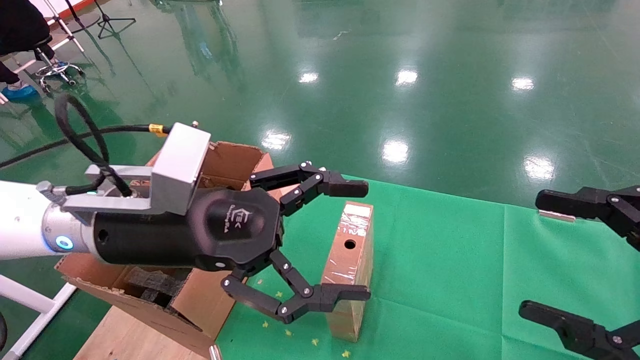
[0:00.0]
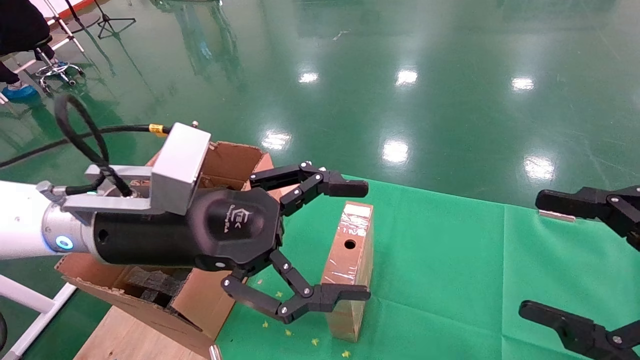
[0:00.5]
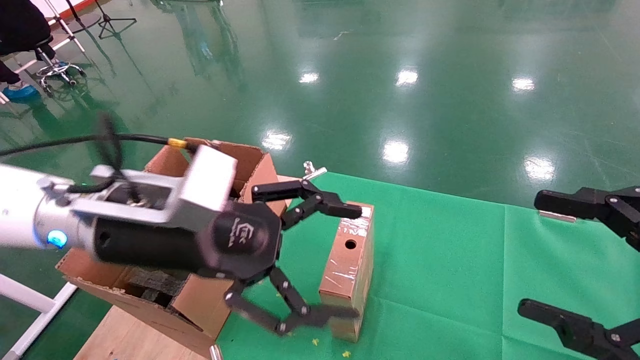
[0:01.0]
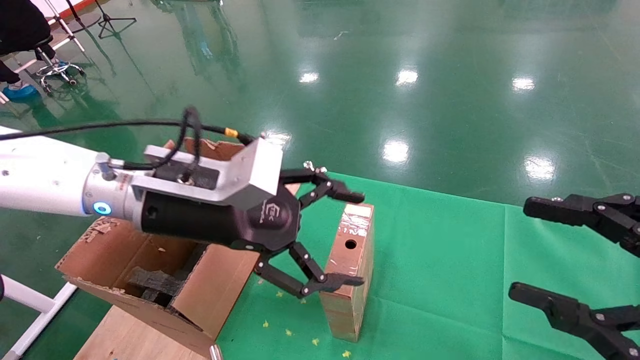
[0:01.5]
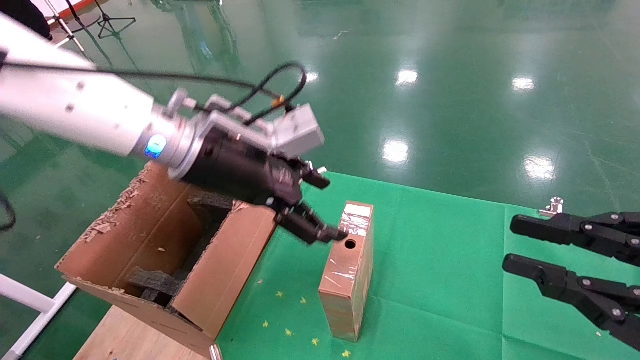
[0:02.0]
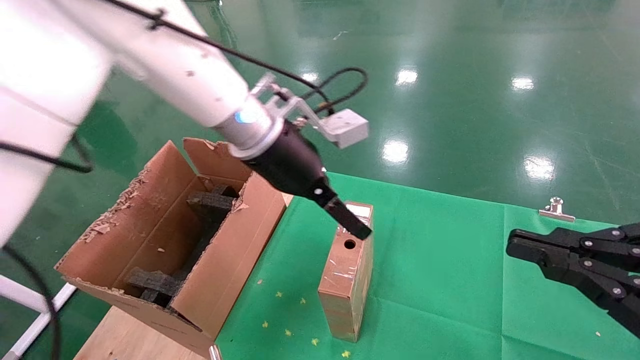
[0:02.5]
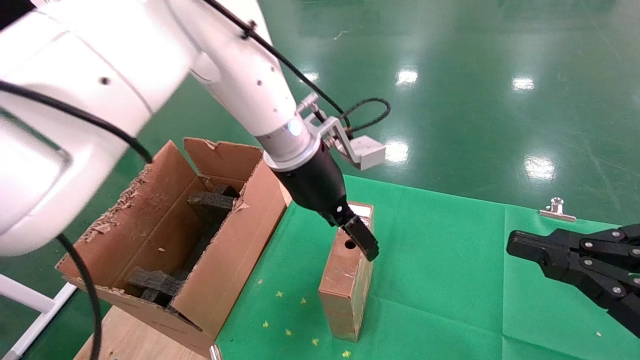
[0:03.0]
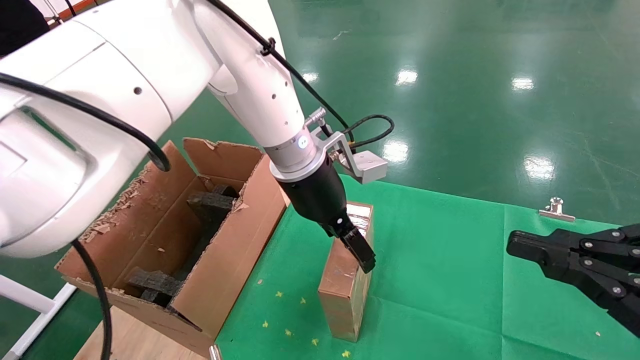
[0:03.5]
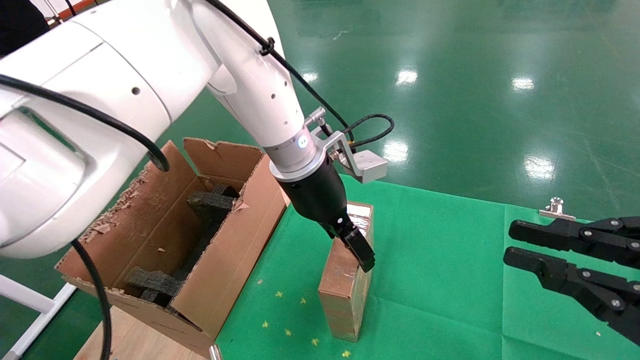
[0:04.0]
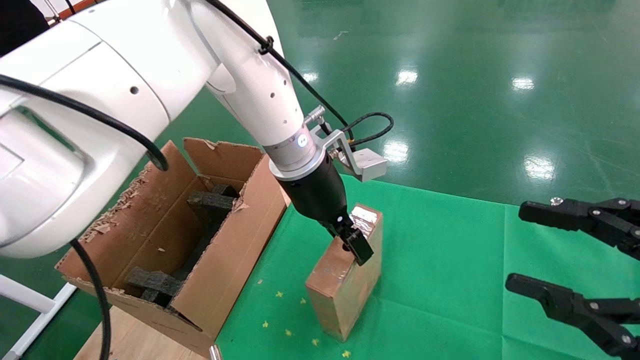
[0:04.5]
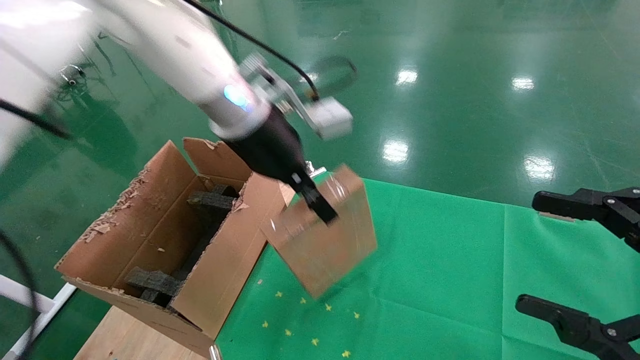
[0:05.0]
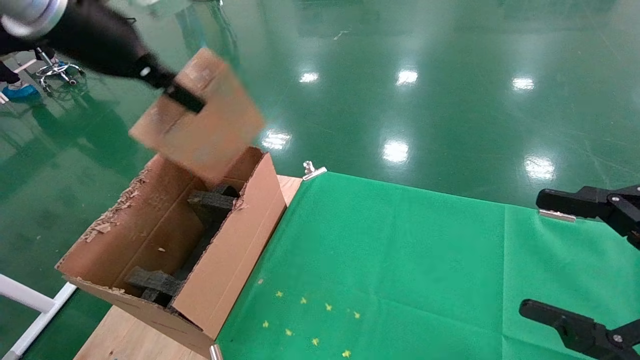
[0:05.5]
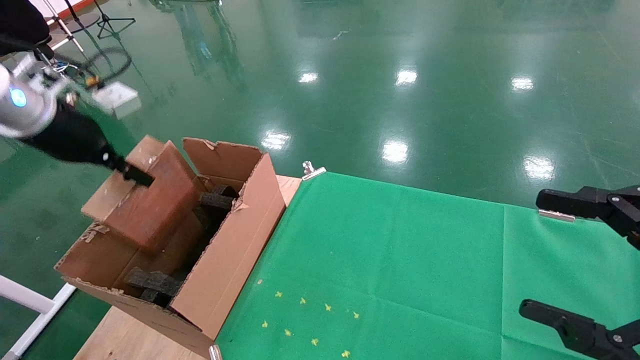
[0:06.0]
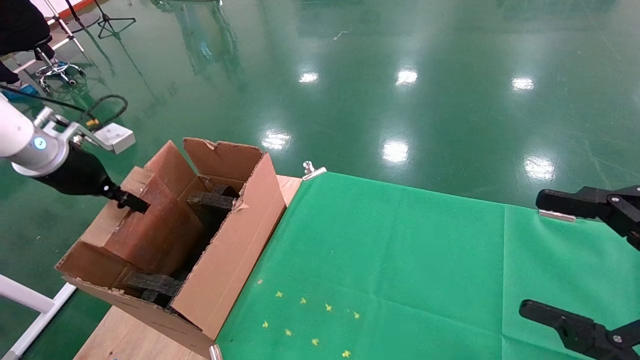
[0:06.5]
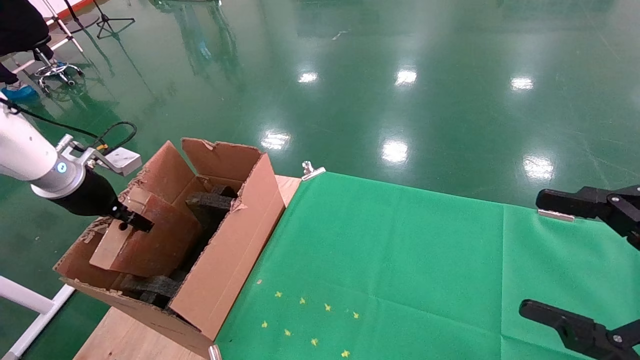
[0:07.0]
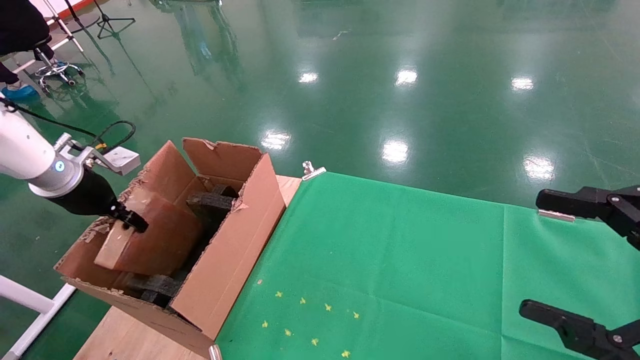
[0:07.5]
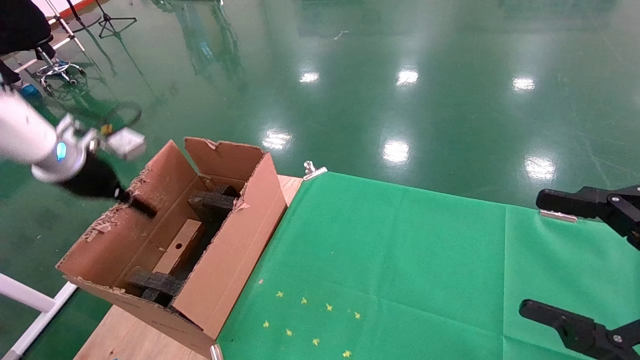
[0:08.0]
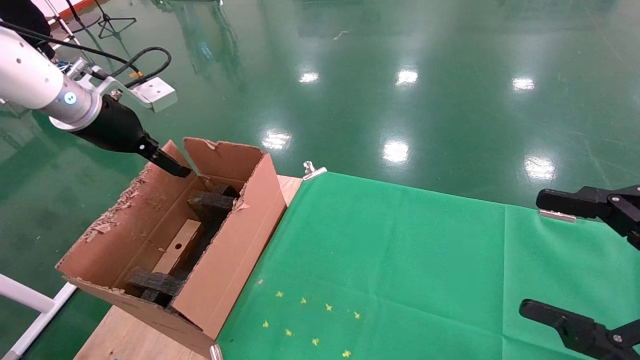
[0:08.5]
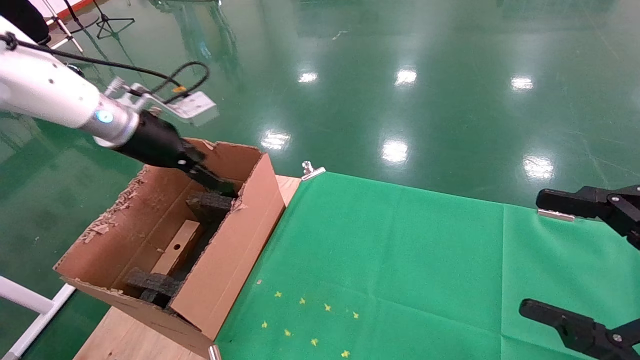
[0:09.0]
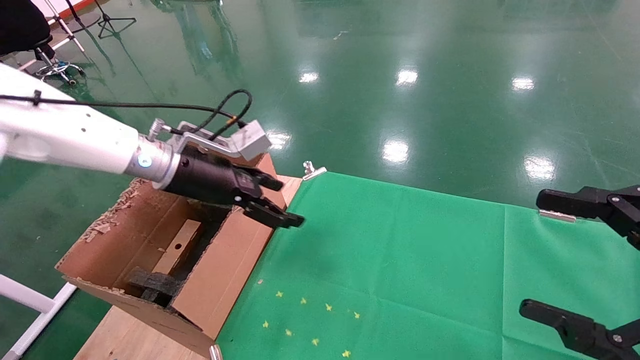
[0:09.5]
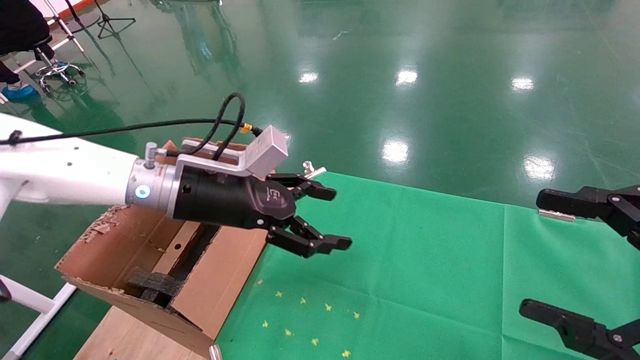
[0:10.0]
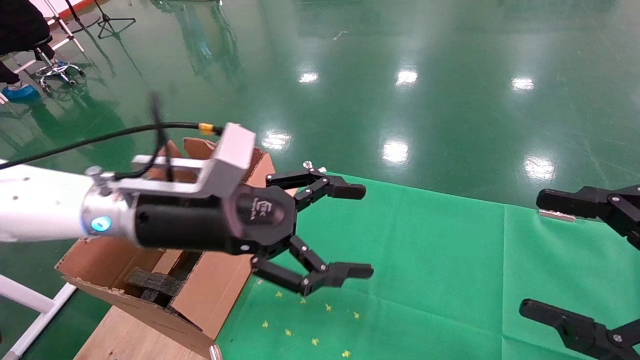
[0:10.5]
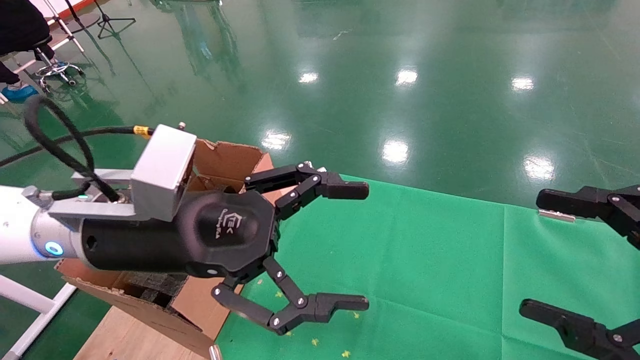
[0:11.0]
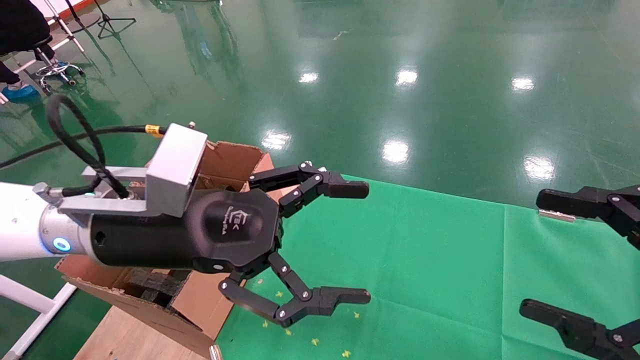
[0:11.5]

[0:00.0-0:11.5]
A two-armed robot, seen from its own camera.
Task of the whole recording: using a robotic arm to pick up a cardboard box and palace it the carton.
Step, 0:01.5 to 0:04.5: Pick up the mouse and the power cord paper box.
Step, 0:05.0 to 0:07.5: Place the mouse and the power cord paper box into the container.
0:00.0 to 0:02.0: The right gripper closes up, while the left gripper heads forward, covering about 10 cm.
0:02.0 to 0:04.0: The left gripper heads to the right and forward, covering roughly 10 cm.
0:04.0 to 0:06.0: The left gripper travels to the left by roughly 35 cm, and closes its fingers. Meanwhile the right gripper opens.
0:06.0 to 0:07.5: The left gripper shifts some 10 cm downward and to the left.
0:07.5 to 0:09.5: The left gripper travels to the right by approximately 20 cm, and opens its fingers.
0:09.5 to 0:11.5: The left gripper heads backward and to the right, covering some 15 cm.

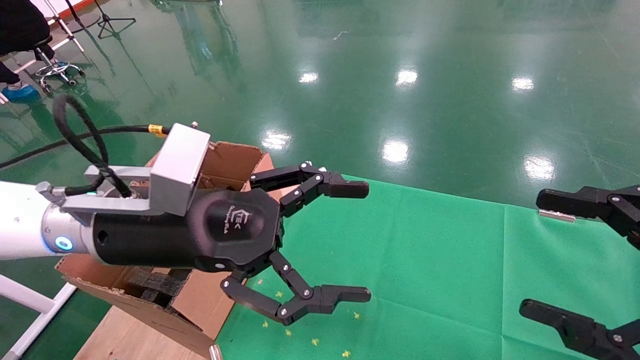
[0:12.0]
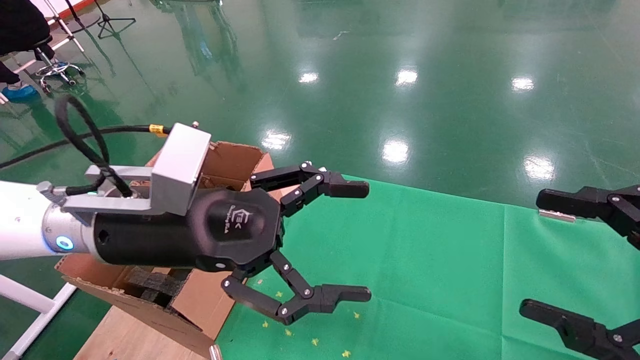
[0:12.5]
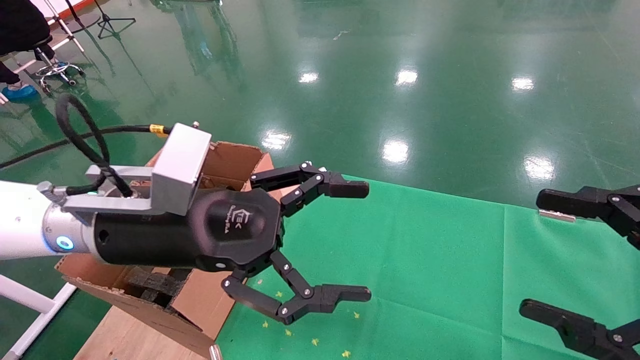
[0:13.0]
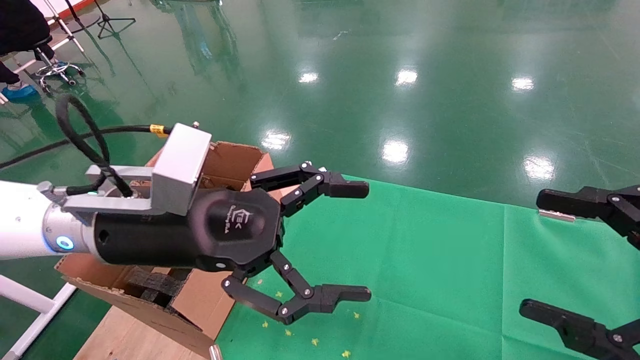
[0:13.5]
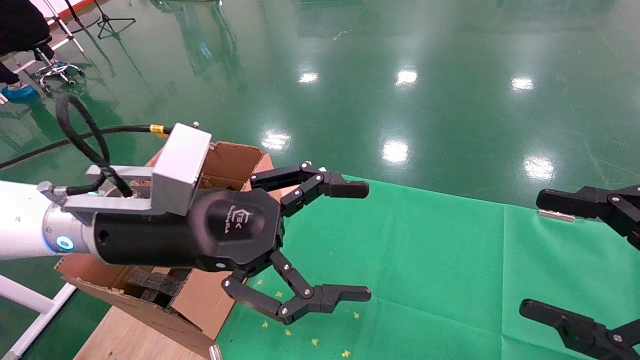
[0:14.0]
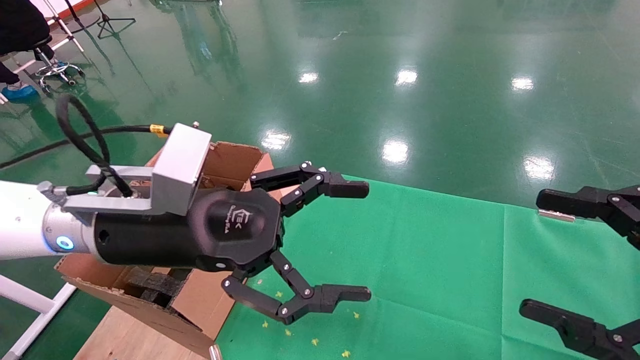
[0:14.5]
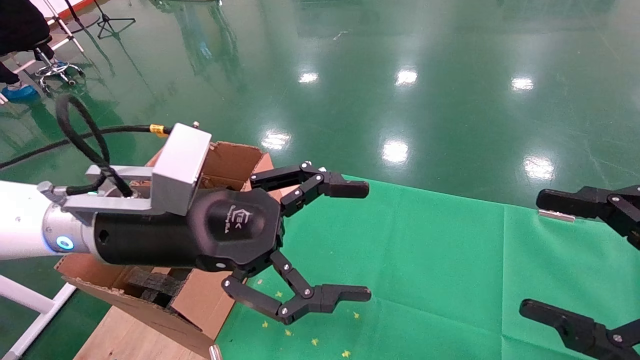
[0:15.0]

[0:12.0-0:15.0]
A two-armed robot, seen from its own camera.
Task of the whole recording: using a robotic arm to pick up a cardboard box and palace it the carton.
0:12.0 to 0:15.0: Both grippers stay put.

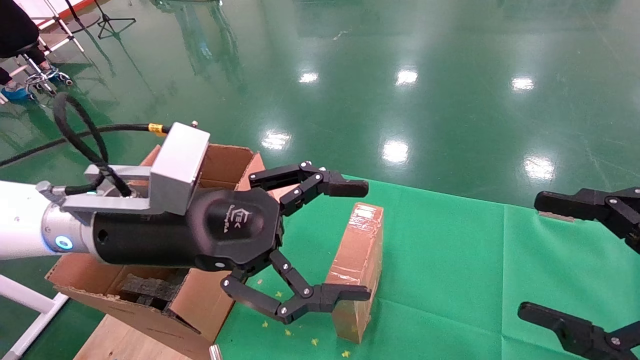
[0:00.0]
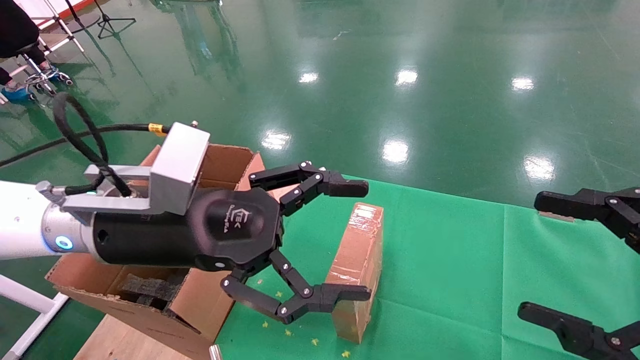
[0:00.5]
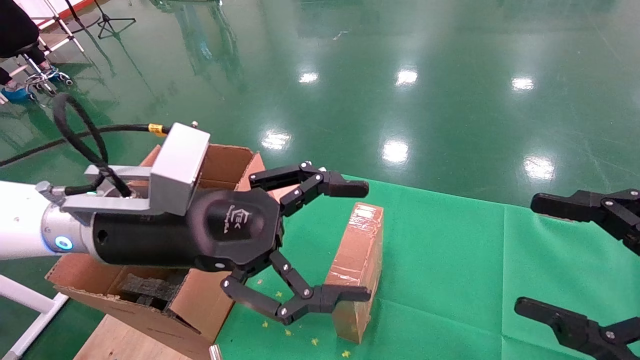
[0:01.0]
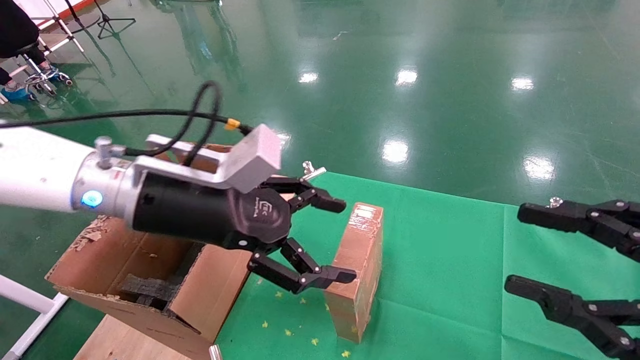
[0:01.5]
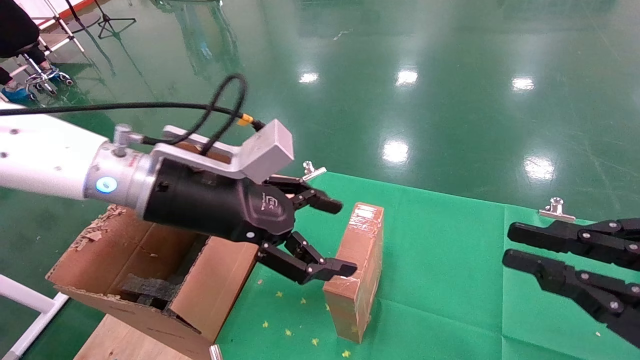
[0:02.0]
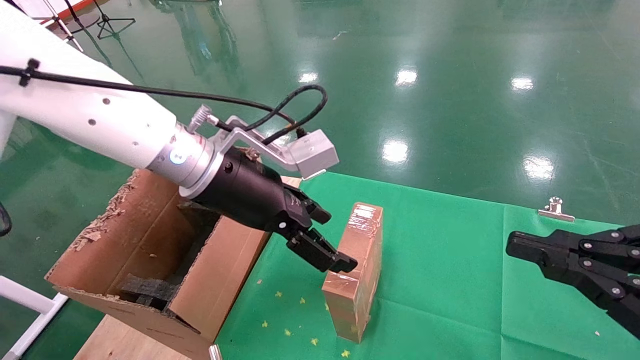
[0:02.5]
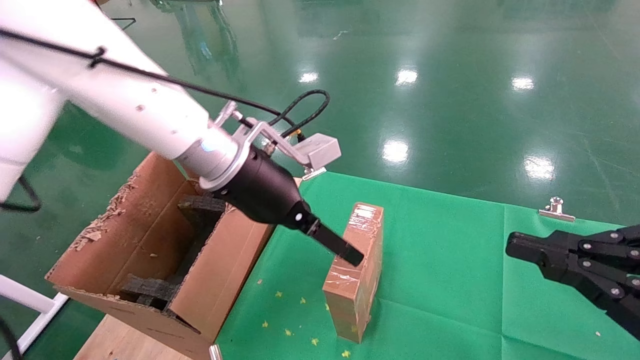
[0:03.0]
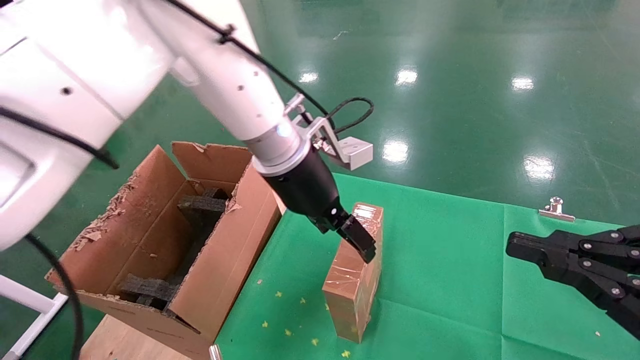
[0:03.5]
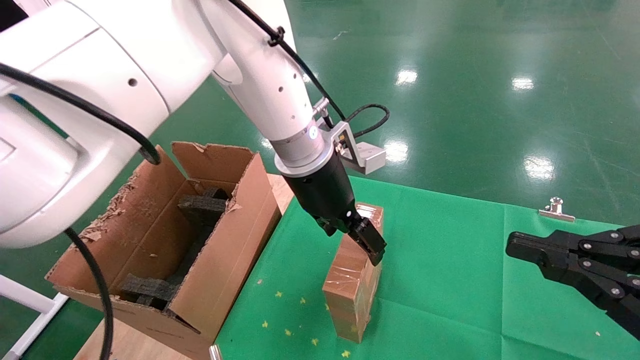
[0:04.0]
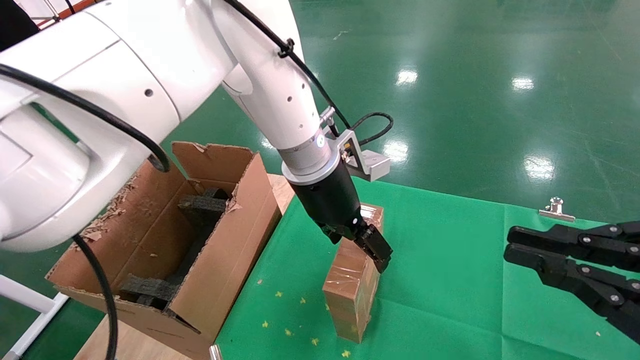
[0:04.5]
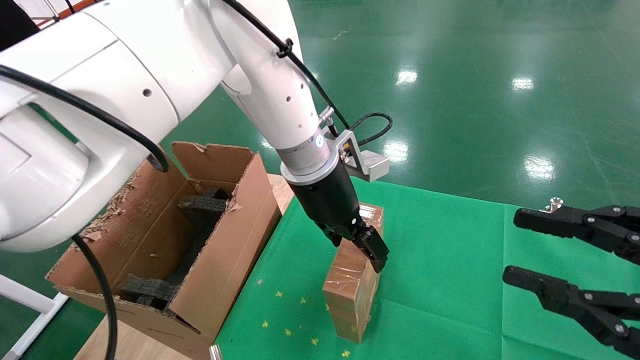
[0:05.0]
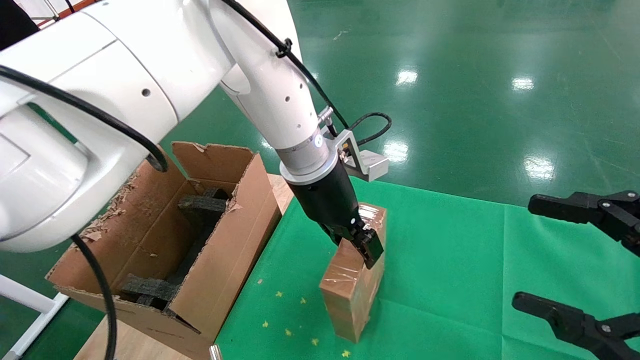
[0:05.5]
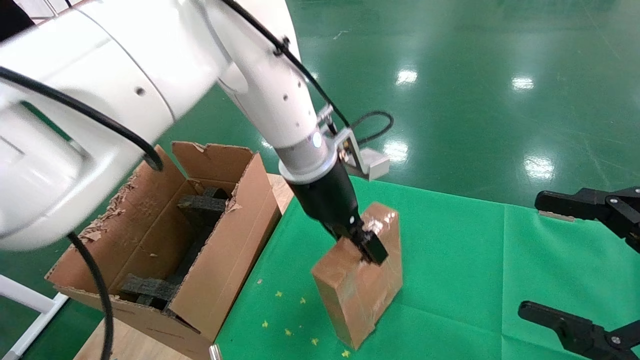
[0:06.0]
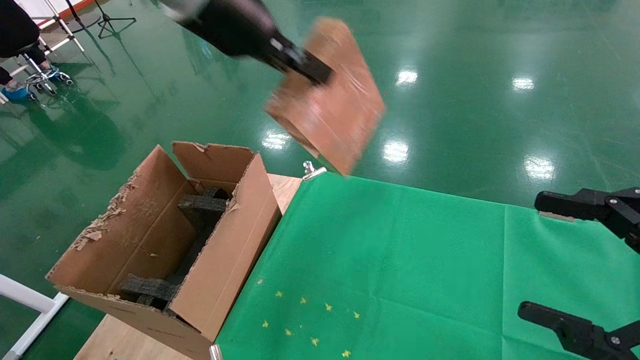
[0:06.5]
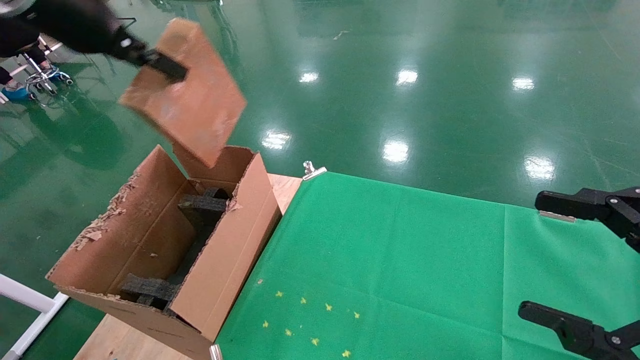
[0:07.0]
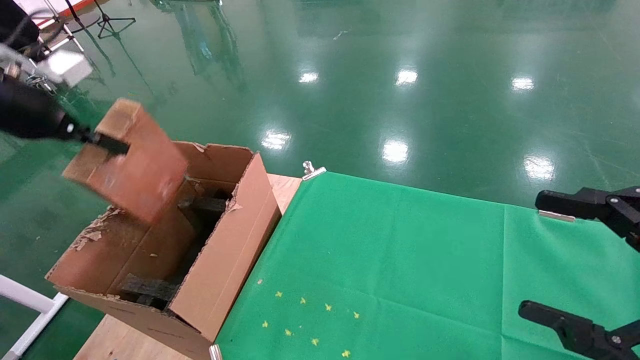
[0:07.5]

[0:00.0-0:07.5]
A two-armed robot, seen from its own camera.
Task of the whole recording: using a robotic arm to pick up a cardboard box and palace it the carton.
Step, 0:01.5 to 0:05.5: Pick up the mouse and the power cord paper box.
0:00.0 to 0:02.0: The right gripper closes up. The left gripper heads forward, covering approximately 5 cm.
0:02.0 to 0:04.0: The left gripper moves to the right and forward, about 15 cm.
0:04.0 to 0:05.5: The right gripper opens up. Meanwhile the left gripper closes up.
0:05.5 to 0:07.5: The left gripper travels to the left by about 40 cm, and closes.
